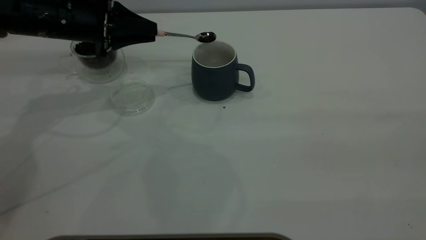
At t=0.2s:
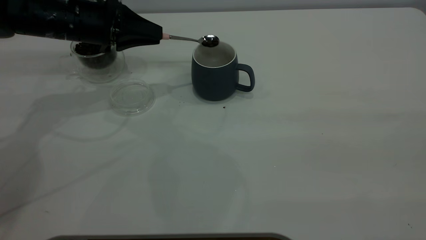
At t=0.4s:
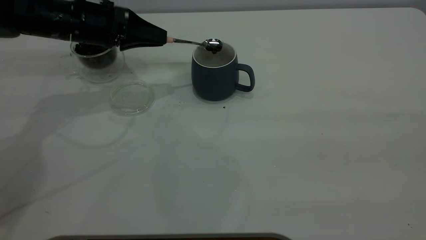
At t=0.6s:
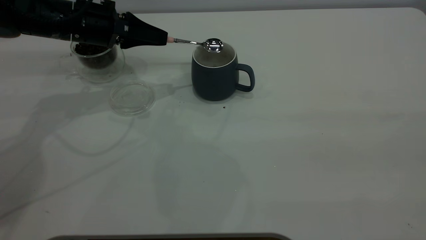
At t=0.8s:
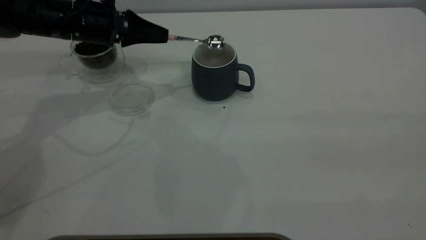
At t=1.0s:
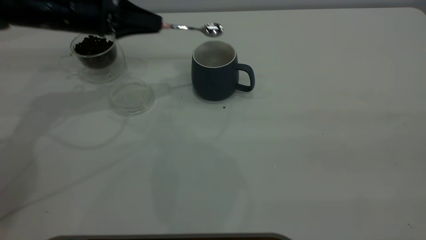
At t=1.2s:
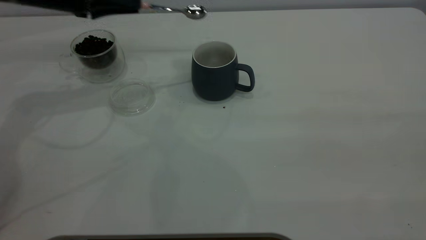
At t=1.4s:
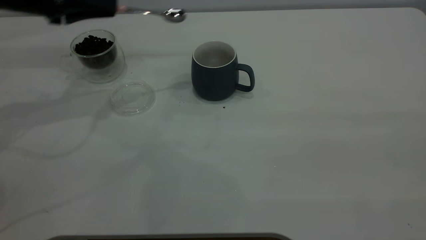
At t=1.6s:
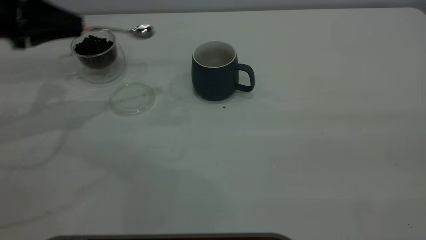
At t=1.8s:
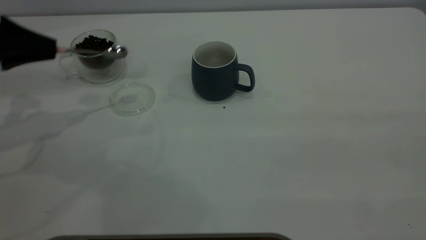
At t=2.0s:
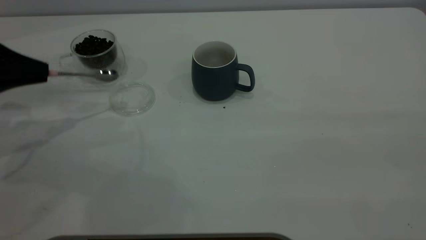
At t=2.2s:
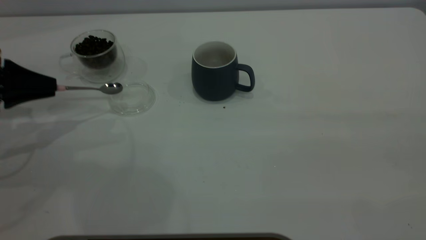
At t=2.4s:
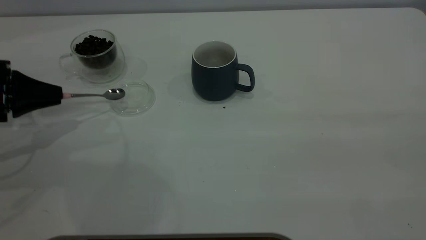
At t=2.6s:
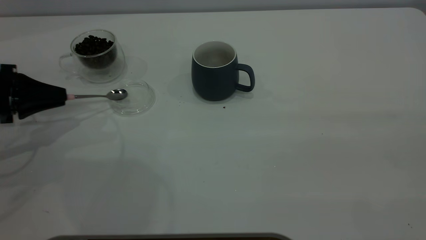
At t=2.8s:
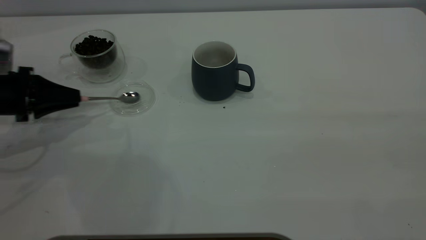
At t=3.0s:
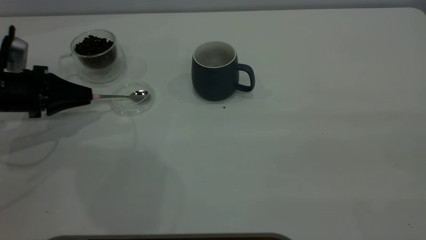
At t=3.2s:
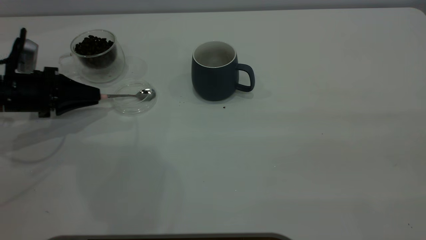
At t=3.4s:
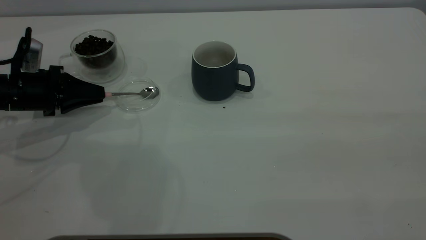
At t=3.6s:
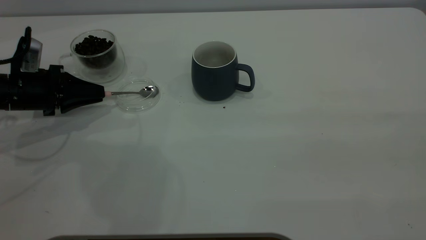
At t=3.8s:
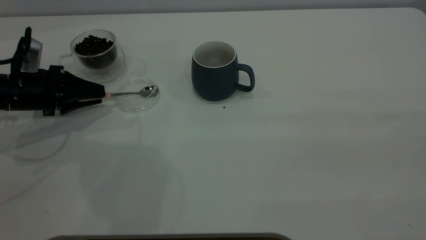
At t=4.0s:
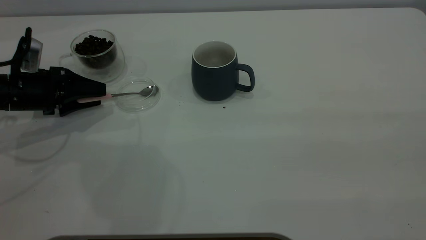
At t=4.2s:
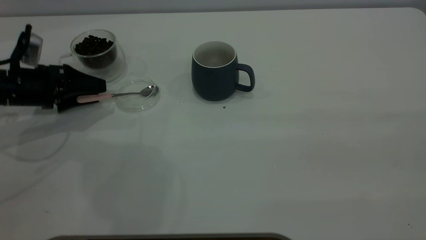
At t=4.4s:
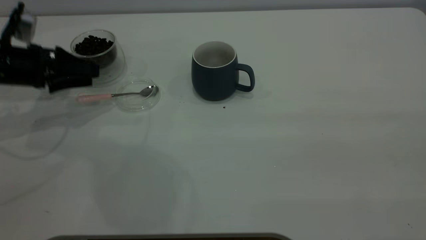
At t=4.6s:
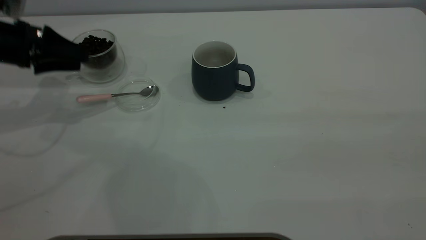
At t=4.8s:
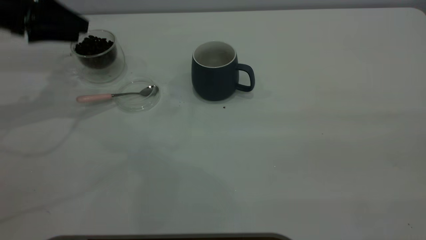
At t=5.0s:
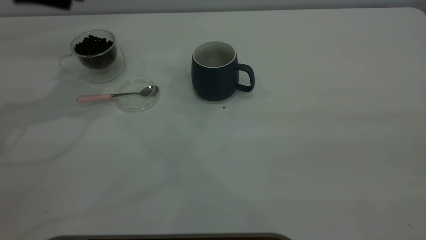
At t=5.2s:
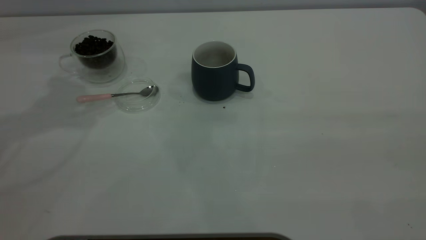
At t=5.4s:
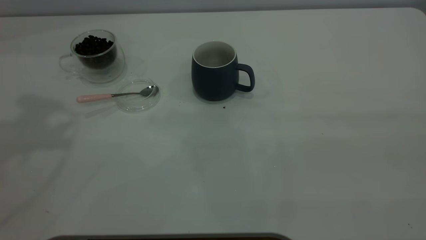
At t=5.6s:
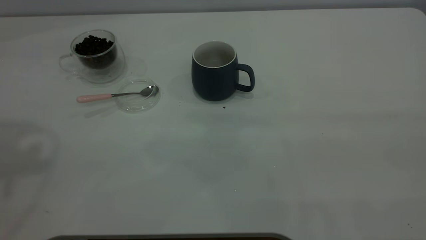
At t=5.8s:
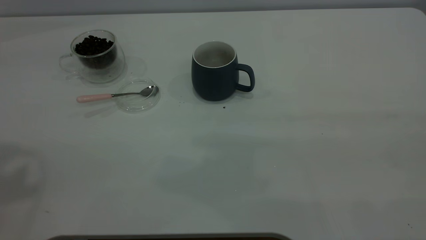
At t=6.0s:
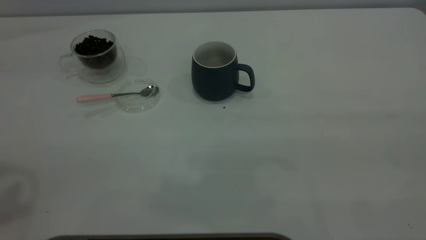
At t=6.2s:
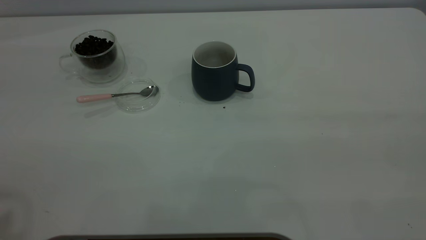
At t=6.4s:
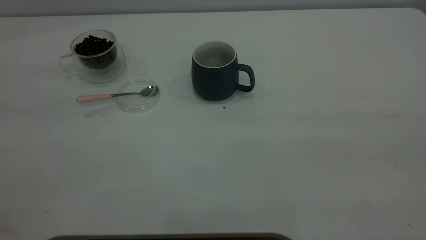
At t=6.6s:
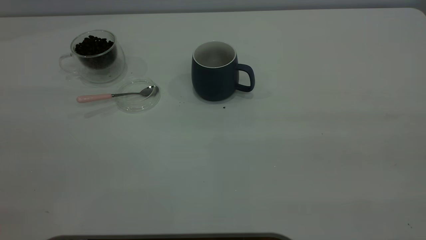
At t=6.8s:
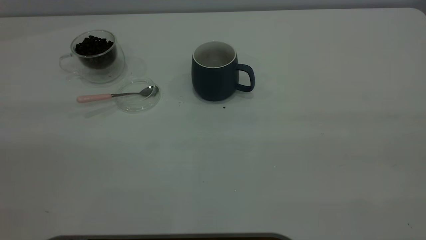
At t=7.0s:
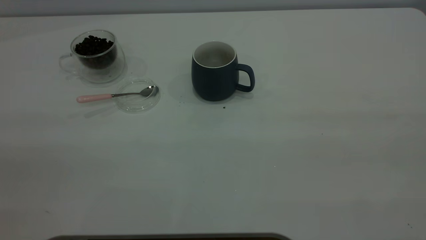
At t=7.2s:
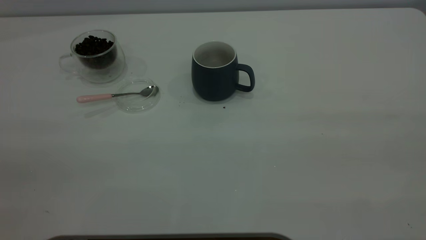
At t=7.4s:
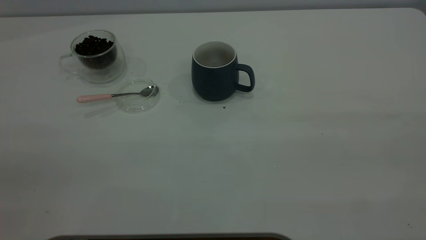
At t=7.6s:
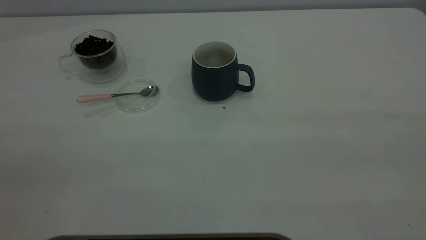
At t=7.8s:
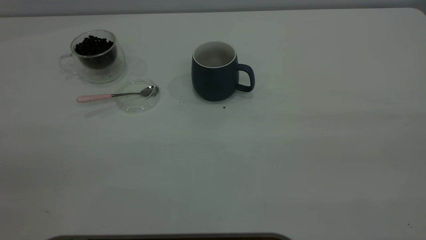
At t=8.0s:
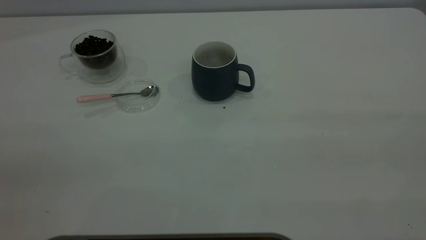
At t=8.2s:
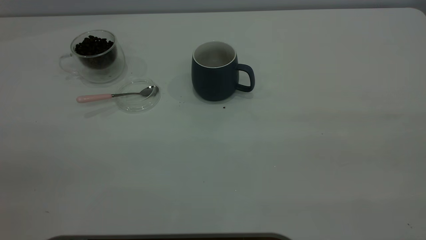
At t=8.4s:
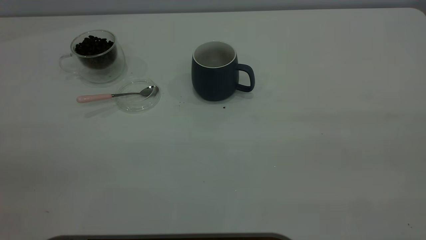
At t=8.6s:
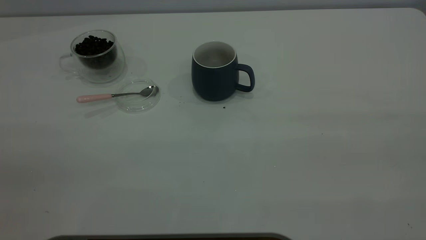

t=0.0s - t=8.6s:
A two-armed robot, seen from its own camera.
Task of the whole recording: the right gripper place the grey cup in the center of the table, the left gripper take the pink spoon from the cup lid and scoop out the coffee beans from the coffee cup and put them into the grey cup, the left gripper put the spoon back into the cup lid.
Step, t=1.2s - t=4.4s: Place the spoon back in its original place.
t=0.0s - t=1.4s: The left gripper shifts roughly 10 cm upward and to the left.
t=1.4s - t=2.8s: The left gripper heads downward, to the left and backward, covering approximately 15 cm.
t=2.8s - t=4.4s: The left gripper changes place by about 5 cm, and opens up.
t=4.4s - t=5.8s: The left gripper moves upward and backward, roughly 40 cm.
t=7.2s - t=8.6s: Both grippers stay about where they are.
